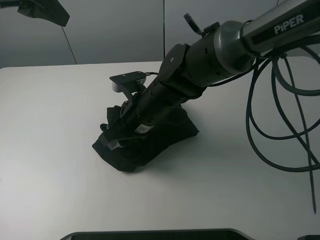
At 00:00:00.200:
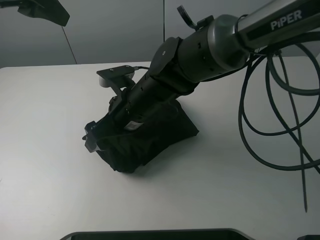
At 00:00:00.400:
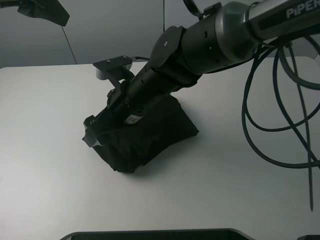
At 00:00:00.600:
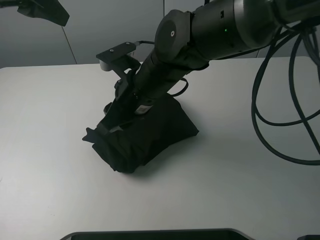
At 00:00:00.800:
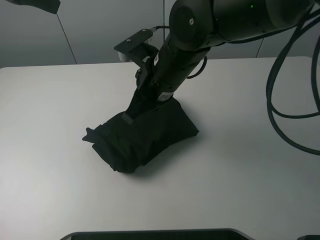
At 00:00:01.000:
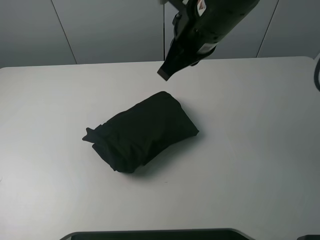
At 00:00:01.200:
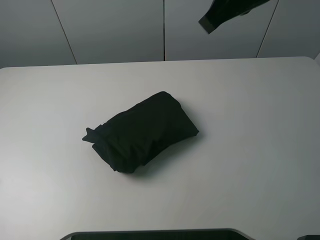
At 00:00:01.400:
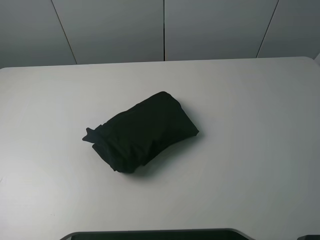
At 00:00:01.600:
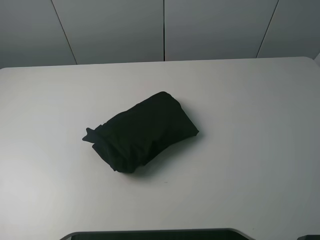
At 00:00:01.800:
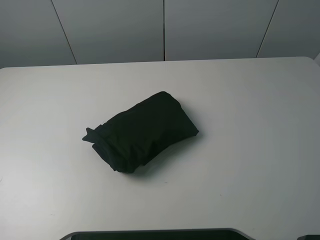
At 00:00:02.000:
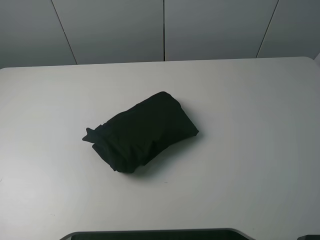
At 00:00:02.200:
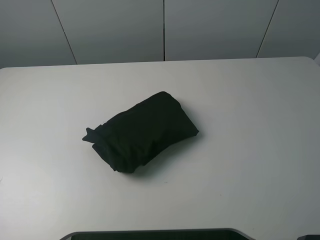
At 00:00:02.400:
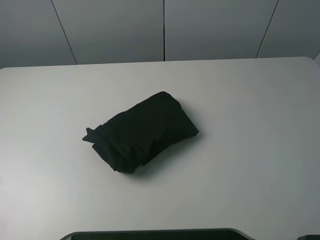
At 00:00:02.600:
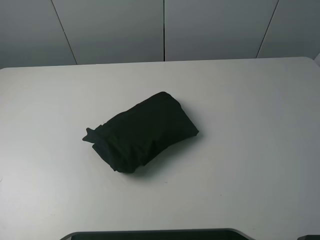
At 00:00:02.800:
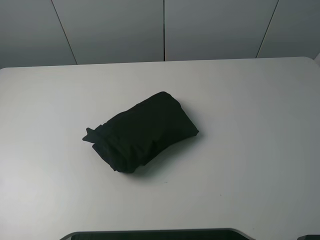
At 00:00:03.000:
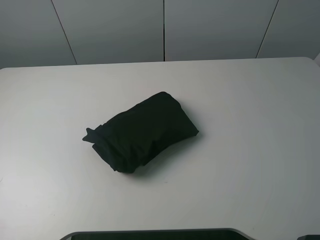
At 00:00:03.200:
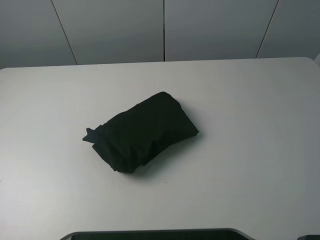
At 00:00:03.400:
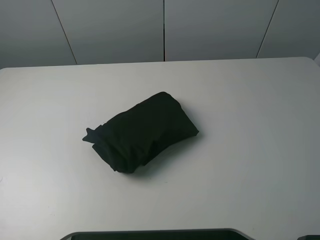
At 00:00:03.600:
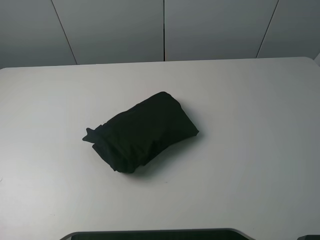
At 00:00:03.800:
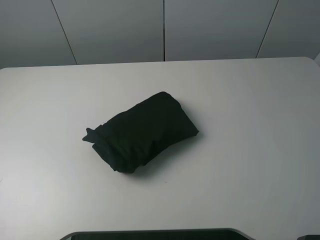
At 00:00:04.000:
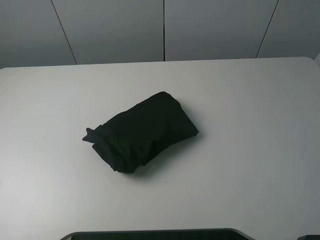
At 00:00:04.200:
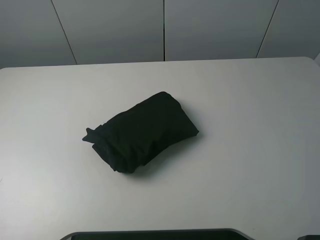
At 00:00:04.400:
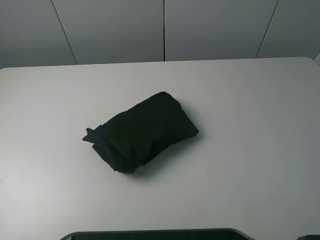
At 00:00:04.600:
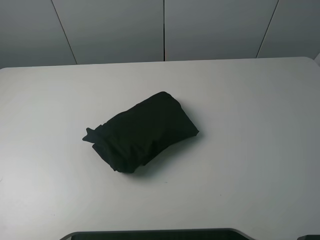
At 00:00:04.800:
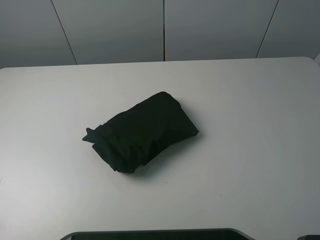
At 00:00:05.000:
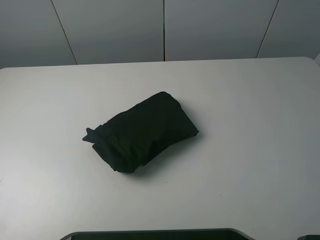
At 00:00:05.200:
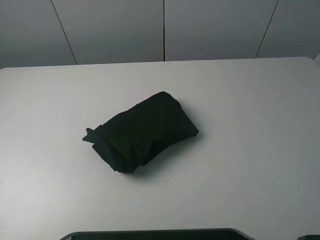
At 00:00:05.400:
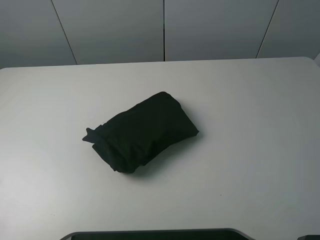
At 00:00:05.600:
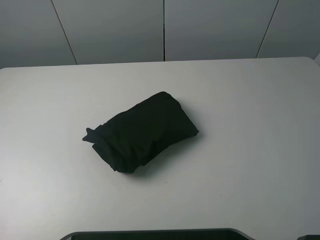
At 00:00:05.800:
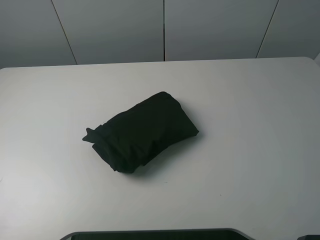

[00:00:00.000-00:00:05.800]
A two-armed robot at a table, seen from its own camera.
Task of the whole recording: fold the clothes on the table.
00:00:00.000 to 00:00:01.400: The right gripper goes approximately 40 cm upward and to the right, and closes and opens again; the left gripper goes about 25 cm backward, upward and to the left.
00:00:04.400 to 00:00:05.800: Both grippers stay put.

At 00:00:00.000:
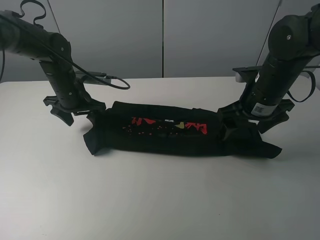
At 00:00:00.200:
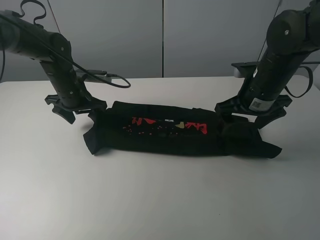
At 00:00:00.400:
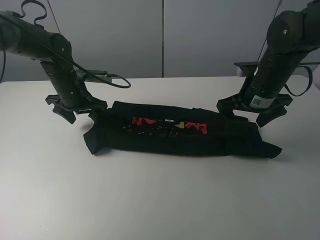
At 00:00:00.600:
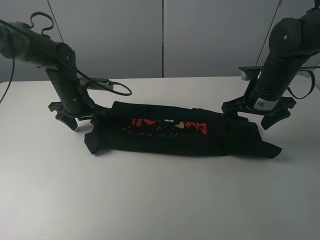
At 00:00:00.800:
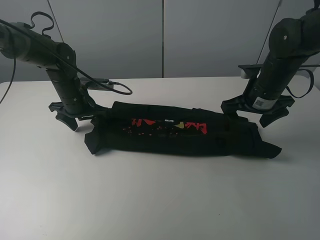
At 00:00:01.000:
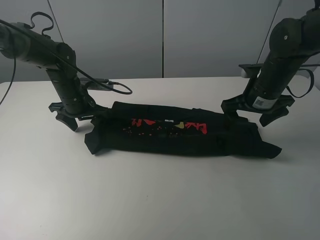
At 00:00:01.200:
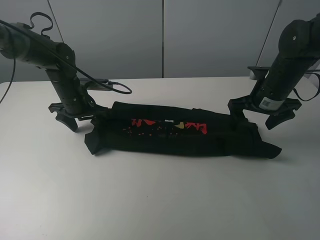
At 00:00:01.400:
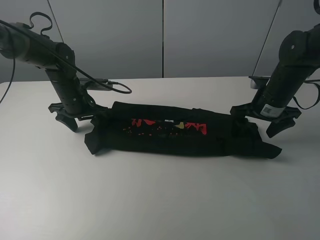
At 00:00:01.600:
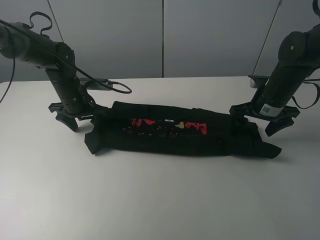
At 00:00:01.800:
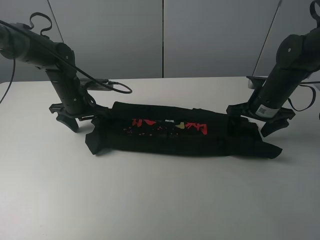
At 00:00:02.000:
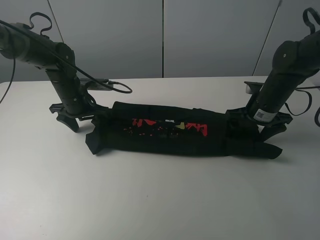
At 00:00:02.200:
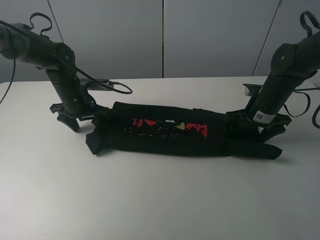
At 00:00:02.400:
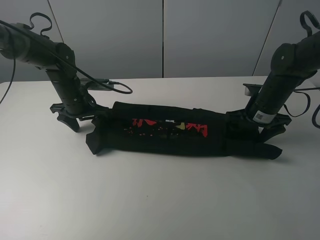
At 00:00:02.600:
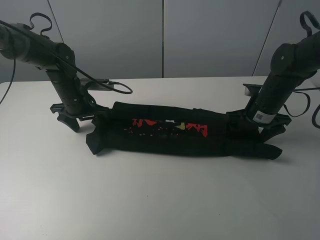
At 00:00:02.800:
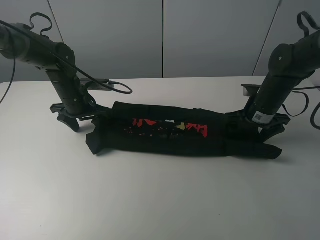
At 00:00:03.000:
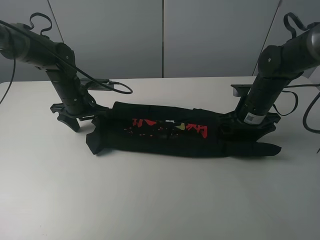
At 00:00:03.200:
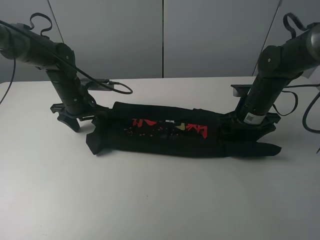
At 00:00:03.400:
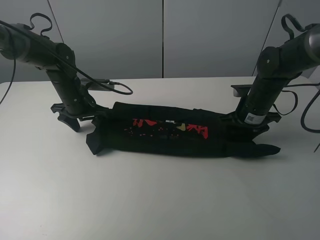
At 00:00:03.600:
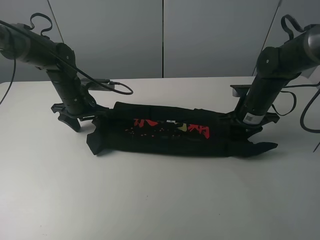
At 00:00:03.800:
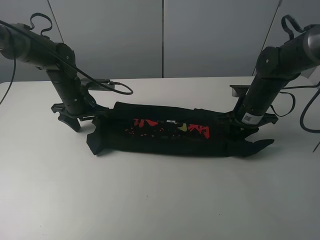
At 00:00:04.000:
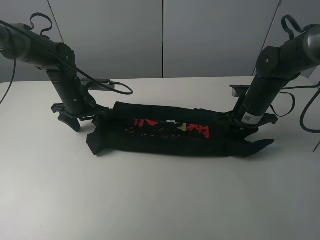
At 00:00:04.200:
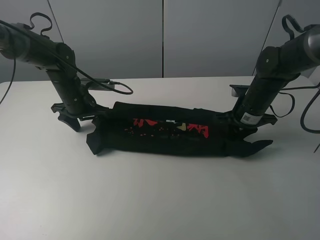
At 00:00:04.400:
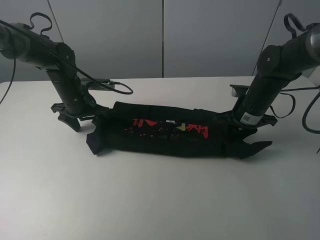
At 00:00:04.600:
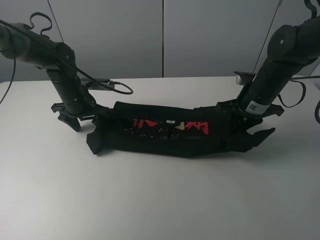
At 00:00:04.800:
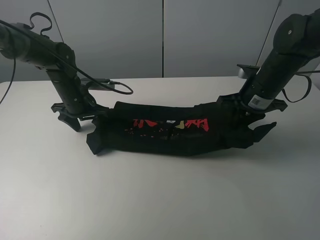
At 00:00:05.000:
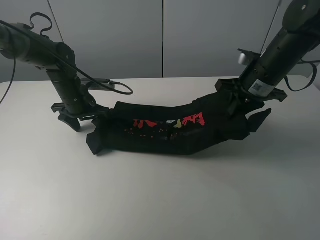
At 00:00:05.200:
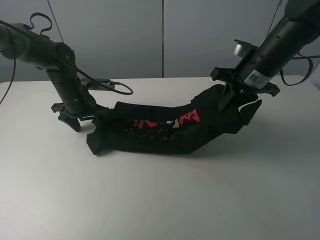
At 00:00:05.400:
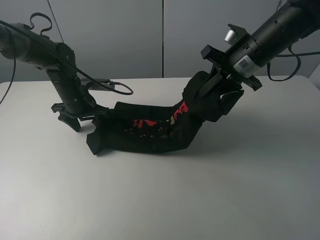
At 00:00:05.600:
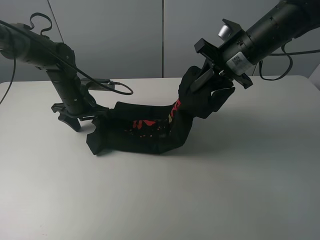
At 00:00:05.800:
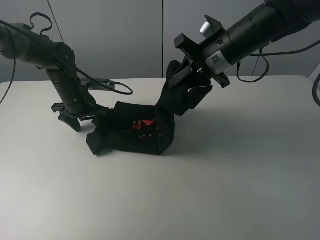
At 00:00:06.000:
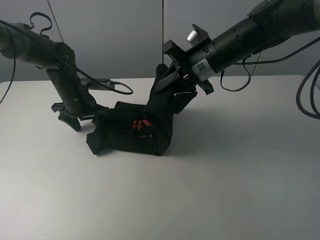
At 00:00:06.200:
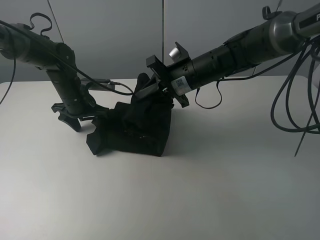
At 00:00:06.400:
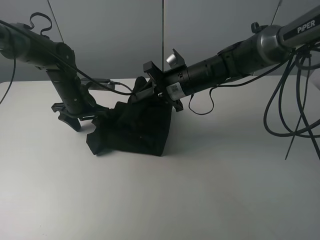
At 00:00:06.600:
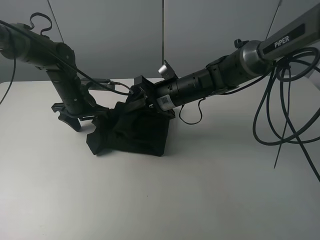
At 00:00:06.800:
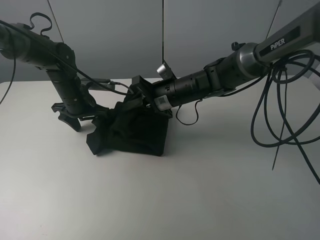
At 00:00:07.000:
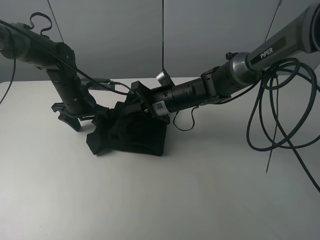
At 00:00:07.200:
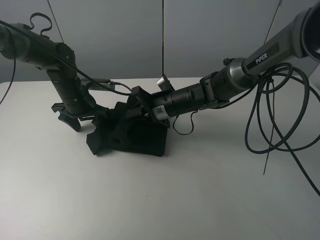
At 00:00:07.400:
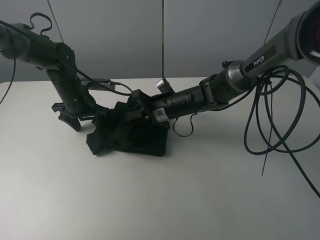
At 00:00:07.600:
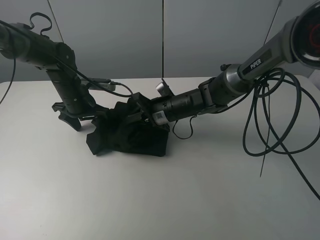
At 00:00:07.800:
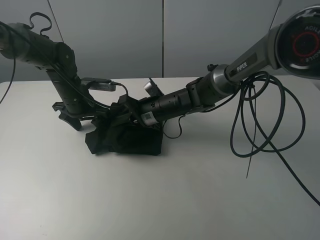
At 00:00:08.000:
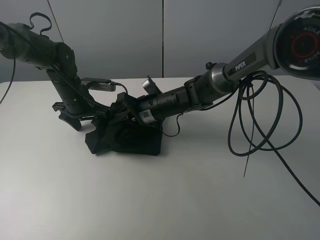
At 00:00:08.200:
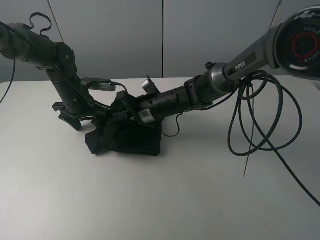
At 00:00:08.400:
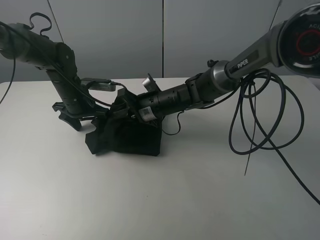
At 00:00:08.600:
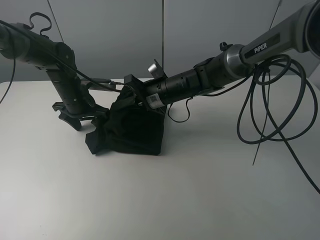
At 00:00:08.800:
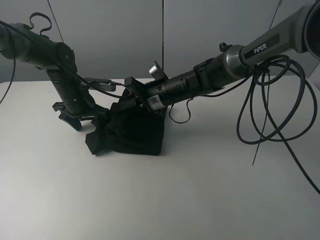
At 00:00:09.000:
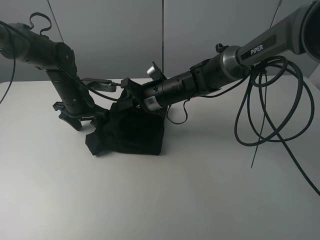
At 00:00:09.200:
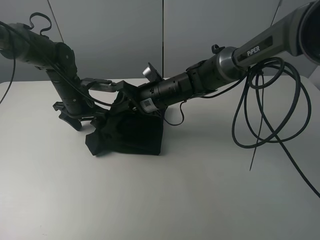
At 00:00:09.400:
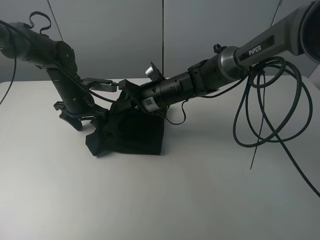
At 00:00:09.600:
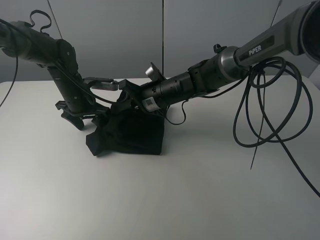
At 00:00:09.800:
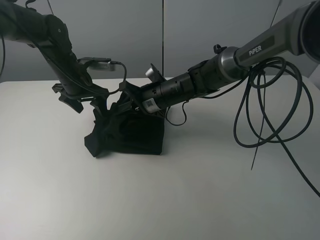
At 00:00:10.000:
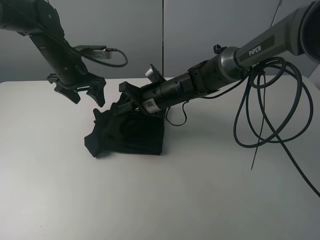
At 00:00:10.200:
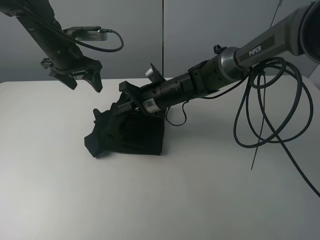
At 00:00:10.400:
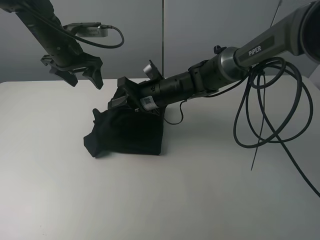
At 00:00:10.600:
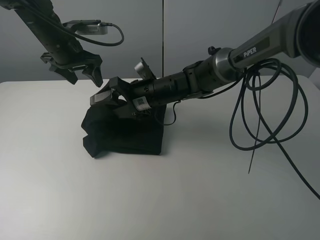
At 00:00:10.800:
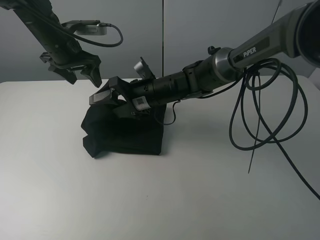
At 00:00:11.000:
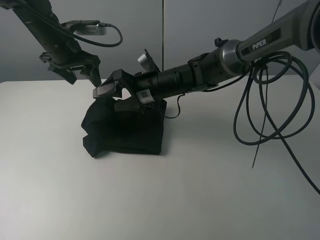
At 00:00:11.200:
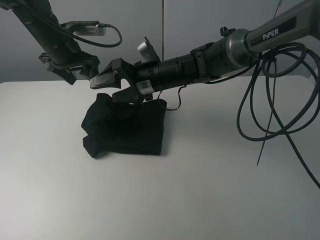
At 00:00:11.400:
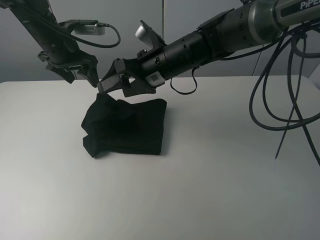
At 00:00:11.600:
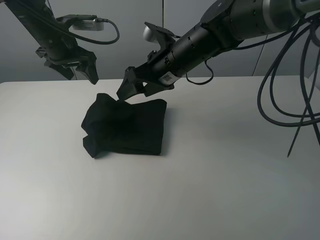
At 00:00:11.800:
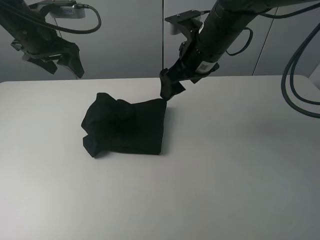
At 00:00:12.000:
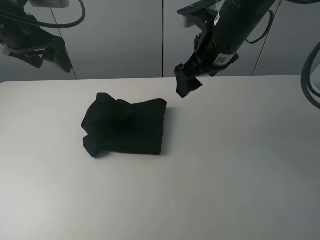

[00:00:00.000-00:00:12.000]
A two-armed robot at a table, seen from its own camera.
Task of the whole recording: fold the clothes on the table.
Step, 00:00:00.000 to 00:00:03.000: Grasp the black T-shirt with the right gripper.
Step, 00:00:03.200 to 00:00:08.600: Fold the black T-shirt from right to left with right gripper.
00:00:00.000 to 00:00:01.600: The right gripper travels to the right by roughly 5 cm.
00:00:01.600 to 00:00:03.000: The grippers make only small movements.
00:00:03.000 to 00:00:04.400: The right gripper closes up.
00:00:04.400 to 00:00:06.000: The right gripper goes approximately 15 cm to the left and upward.
00:00:06.000 to 00:00:07.600: The right gripper moves downward and to the left, about 15 cm.
00:00:07.600 to 00:00:09.000: There are only small adjustments of the grippers.
00:00:09.000 to 00:00:10.400: The right gripper opens. Meanwhile the left gripper travels upward by roughly 10 cm.
00:00:10.400 to 00:00:12.000: The left gripper shifts approximately 10 cm upward, backward and to the left. The right gripper moves upward and to the right, about 20 cm, and opens up.

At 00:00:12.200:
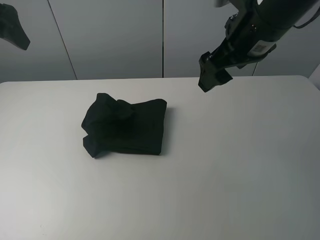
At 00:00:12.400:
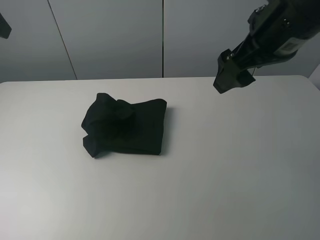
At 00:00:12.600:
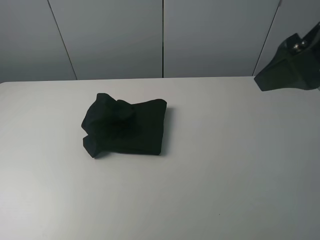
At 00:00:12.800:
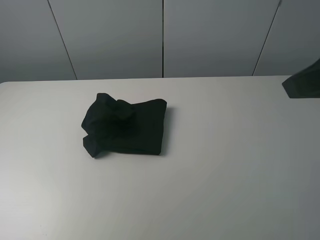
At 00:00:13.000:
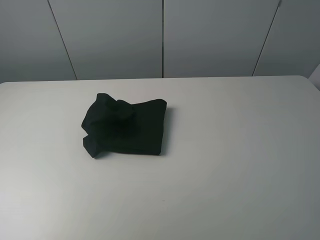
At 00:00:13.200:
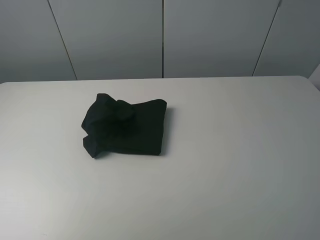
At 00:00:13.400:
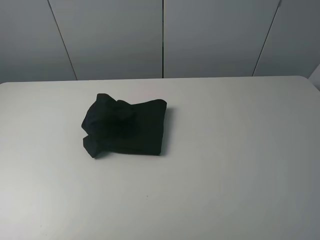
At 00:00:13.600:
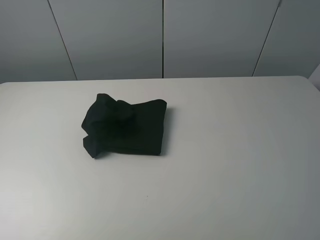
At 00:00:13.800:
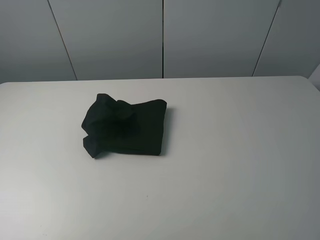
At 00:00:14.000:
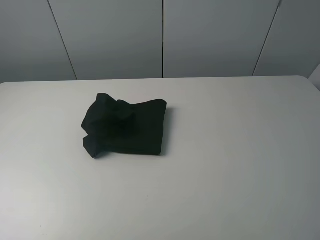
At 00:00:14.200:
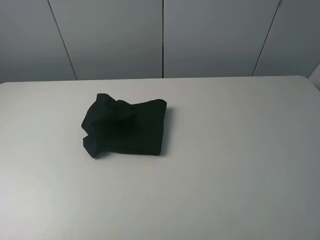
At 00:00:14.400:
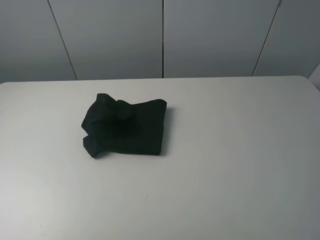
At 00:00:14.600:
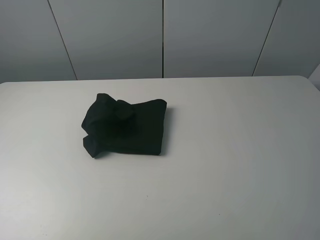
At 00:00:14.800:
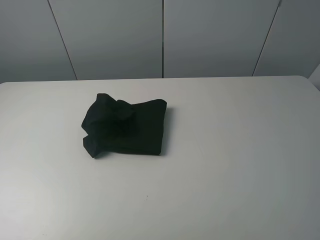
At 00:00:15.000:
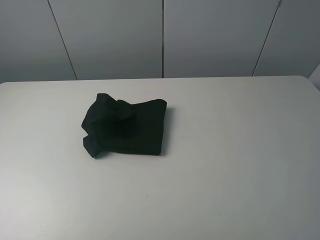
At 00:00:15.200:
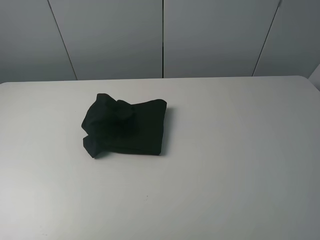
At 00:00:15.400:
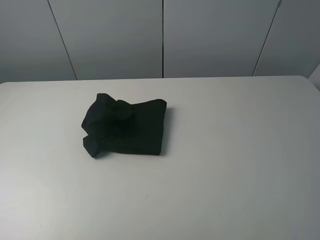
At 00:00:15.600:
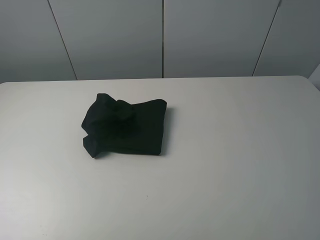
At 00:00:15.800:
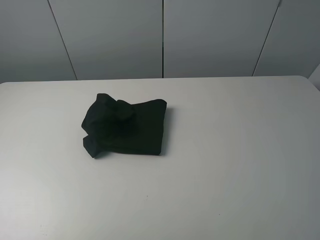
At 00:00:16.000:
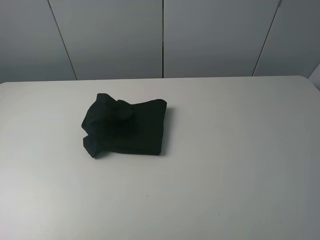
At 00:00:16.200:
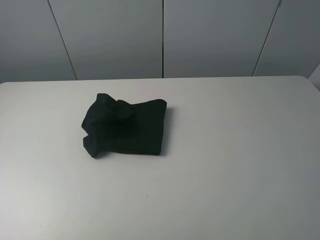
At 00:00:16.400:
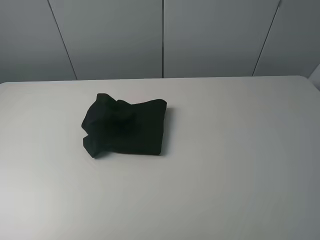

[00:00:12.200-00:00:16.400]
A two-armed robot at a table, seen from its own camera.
Task of the whole recording: fold the clothes on the table.
00:00:12.200 to 00:00:13.600: The left gripper shifts about 30 cm backward. The right gripper shifts roughly 30 cm backward and to the right.
